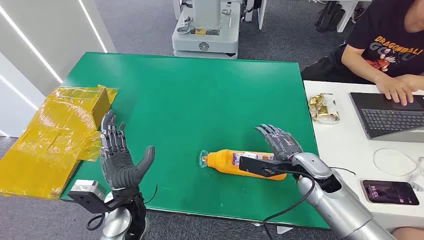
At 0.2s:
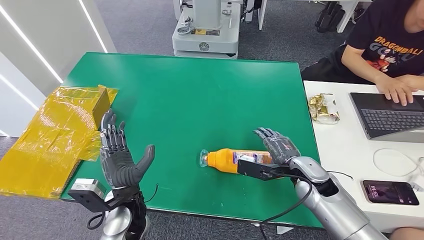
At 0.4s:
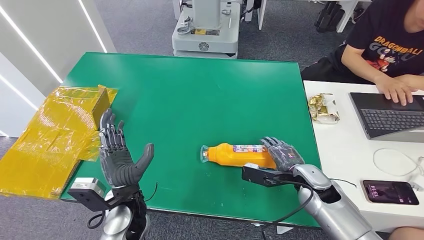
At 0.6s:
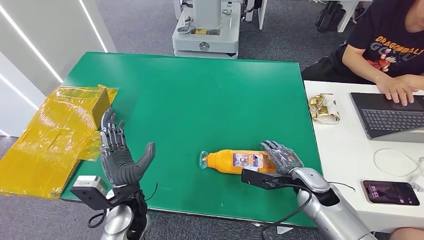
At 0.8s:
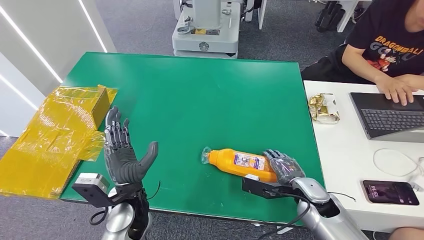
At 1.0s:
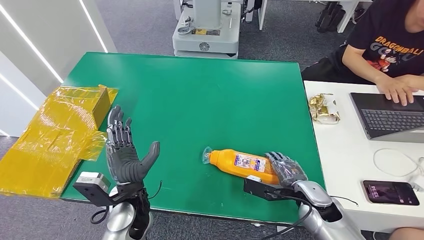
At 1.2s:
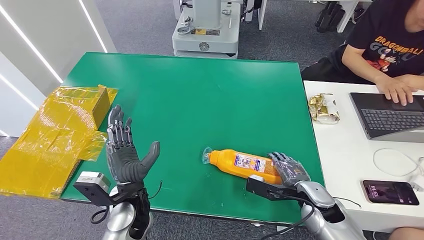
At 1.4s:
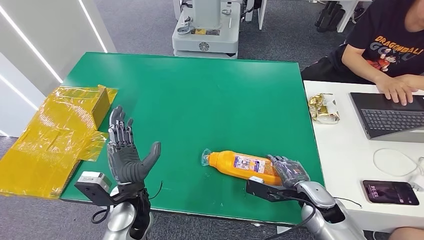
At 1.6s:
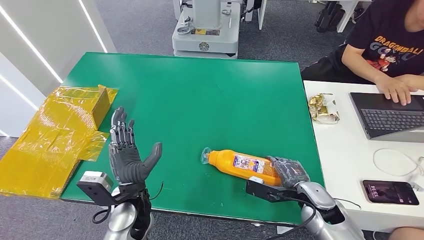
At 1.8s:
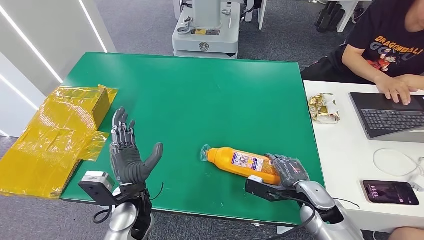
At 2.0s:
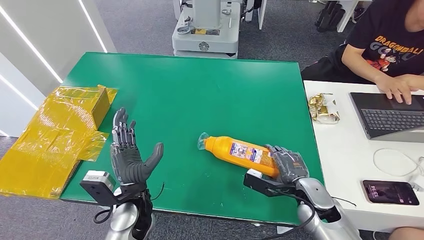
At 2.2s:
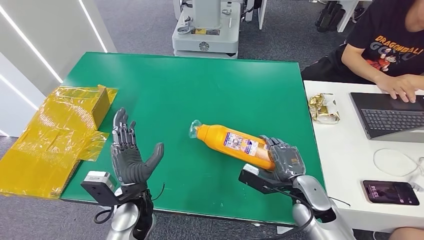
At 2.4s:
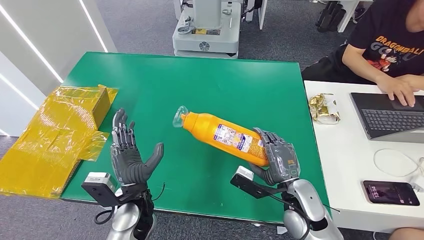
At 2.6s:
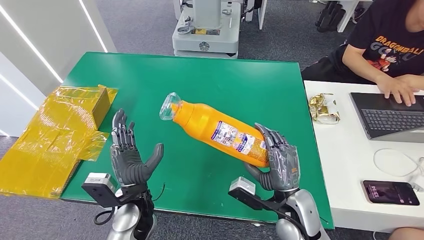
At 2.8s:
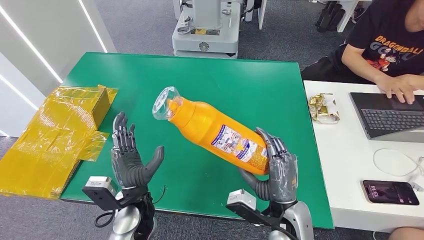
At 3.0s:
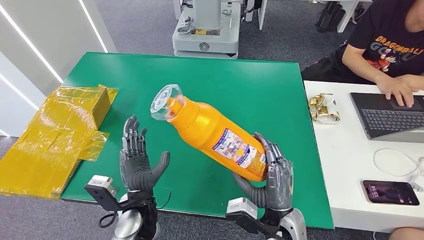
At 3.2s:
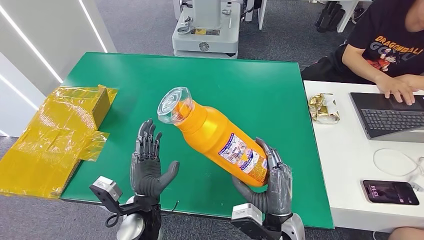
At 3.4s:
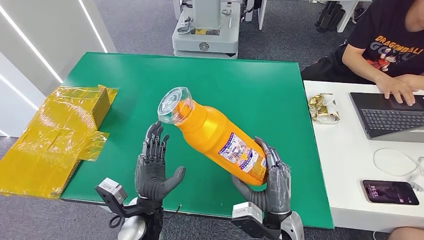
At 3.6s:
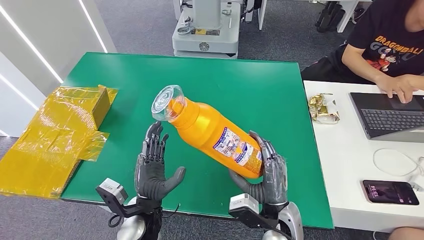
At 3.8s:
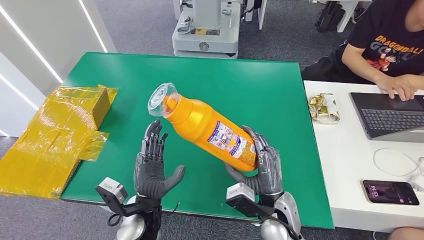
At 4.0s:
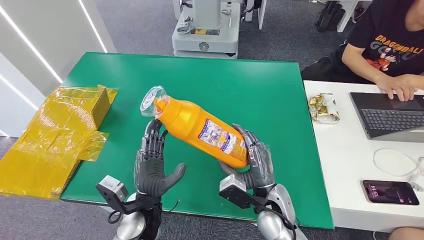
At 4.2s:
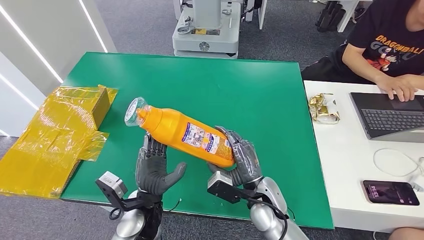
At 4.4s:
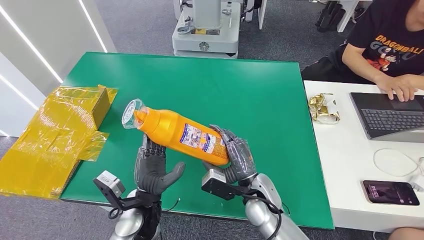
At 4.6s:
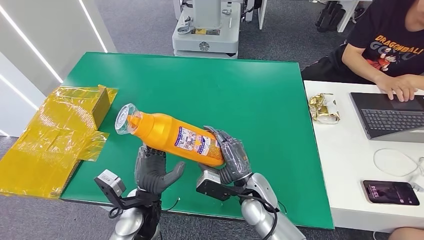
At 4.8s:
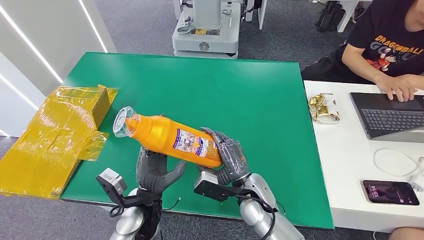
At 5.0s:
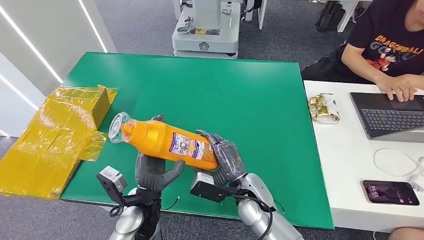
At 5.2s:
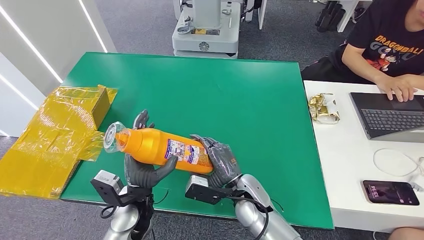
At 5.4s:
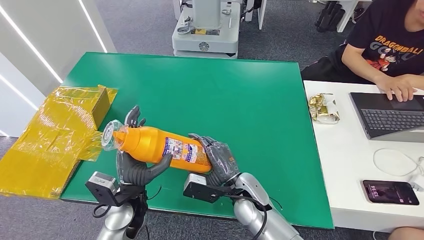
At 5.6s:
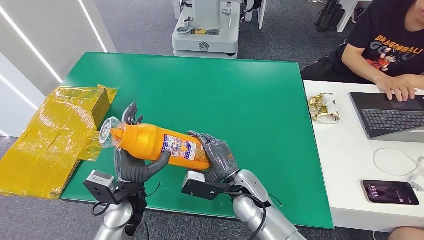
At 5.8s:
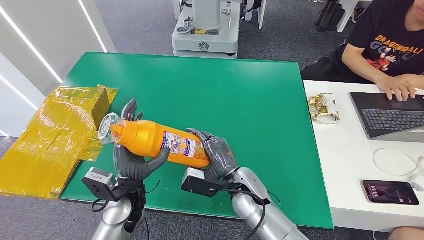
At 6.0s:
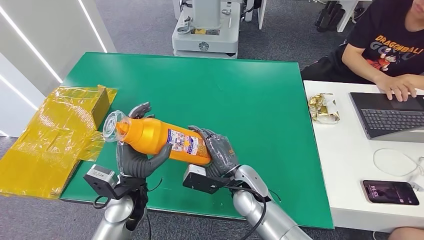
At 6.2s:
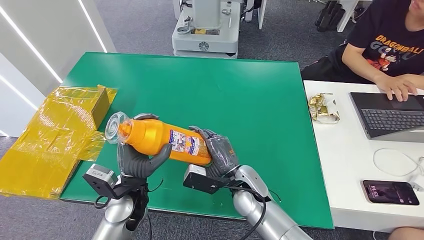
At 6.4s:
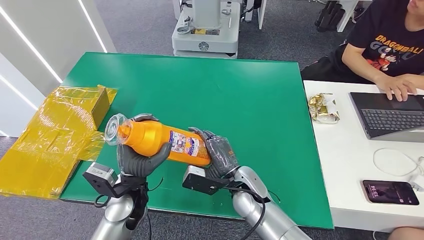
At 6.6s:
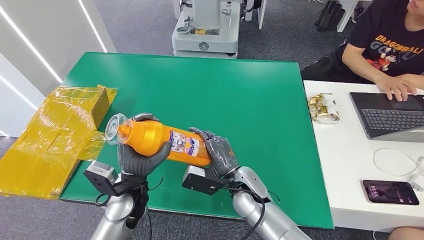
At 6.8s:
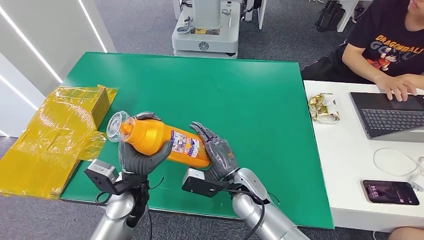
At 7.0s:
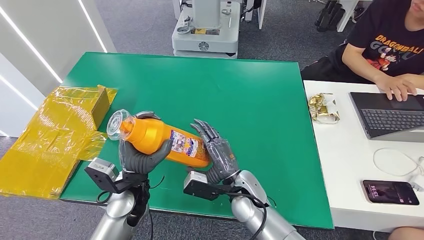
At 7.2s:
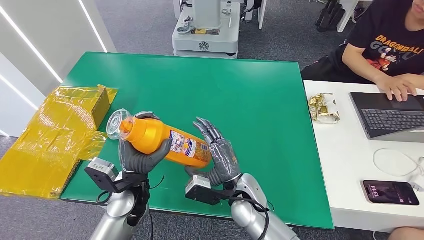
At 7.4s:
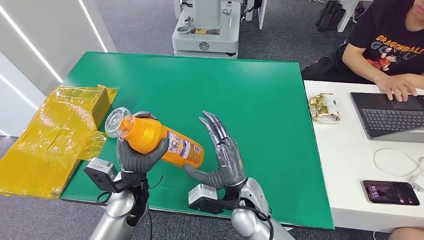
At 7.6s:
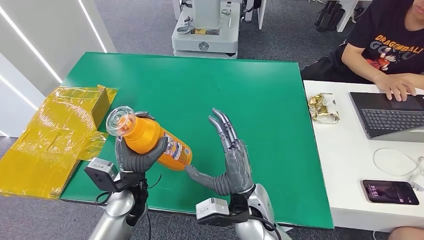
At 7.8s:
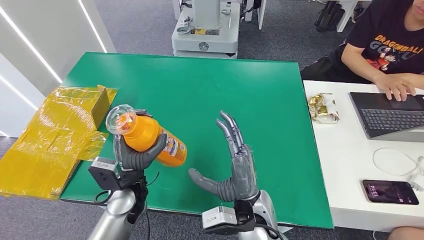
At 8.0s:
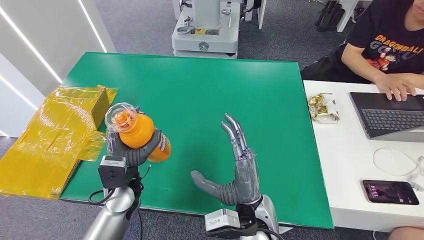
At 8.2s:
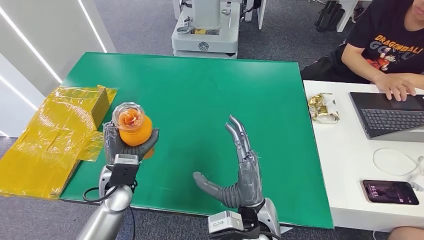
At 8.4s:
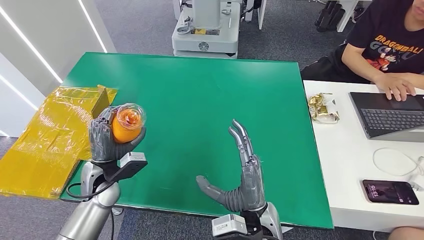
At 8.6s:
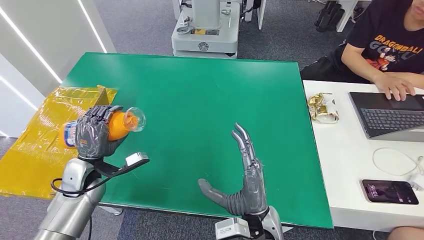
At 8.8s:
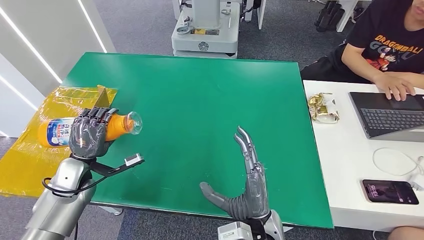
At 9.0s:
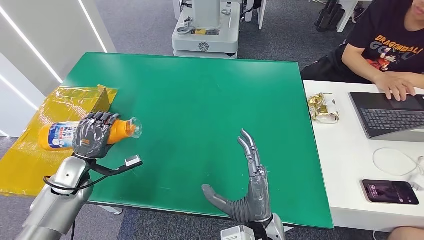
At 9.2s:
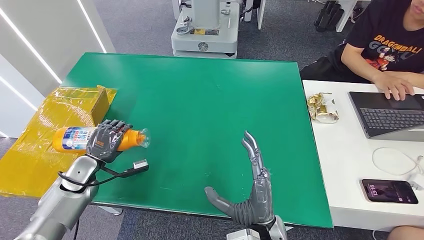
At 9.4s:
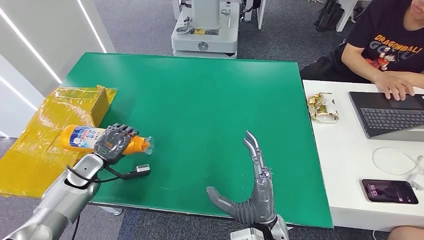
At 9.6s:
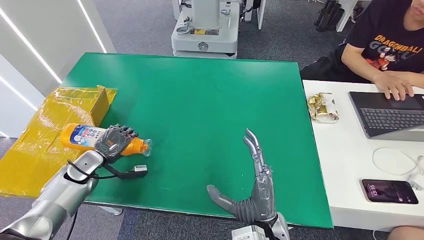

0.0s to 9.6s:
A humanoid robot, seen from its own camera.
Step, 0.0s to 4.0s: Pick up the bottle from the table.
1.6s to 3.2s: The right hand moves to the left and backward, some 15 cm.
3.2s to 4.8s: The right hand travels forward by about 10 cm.
4.8s to 6.4s: The left hand moves some 5 cm.
6.4s to 8.0s: The right hand moves backward, roughly 10 cm.
8.0s to 9.6s: The left hand is displaced to the left by some 20 cm.

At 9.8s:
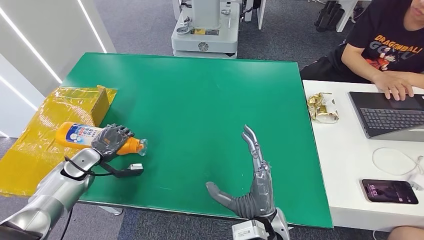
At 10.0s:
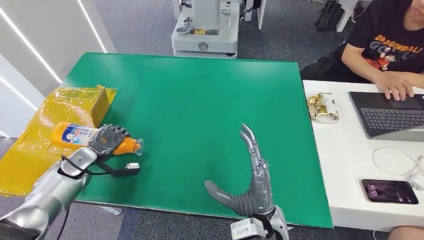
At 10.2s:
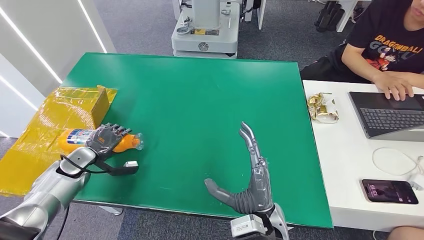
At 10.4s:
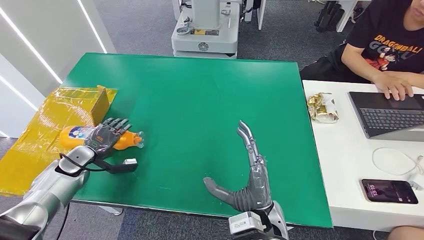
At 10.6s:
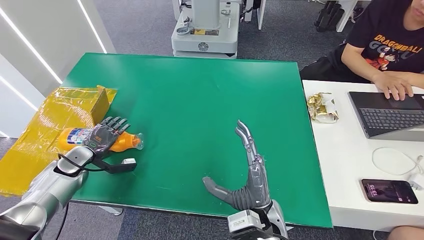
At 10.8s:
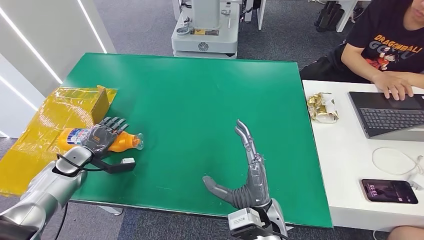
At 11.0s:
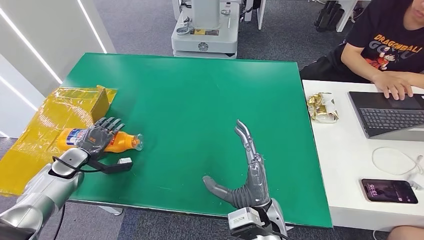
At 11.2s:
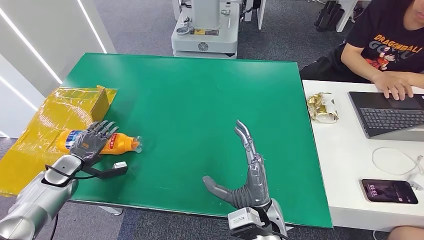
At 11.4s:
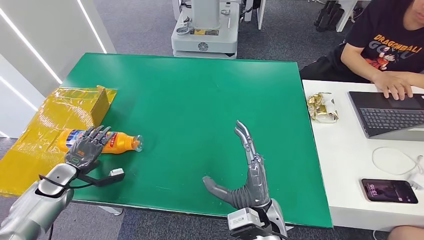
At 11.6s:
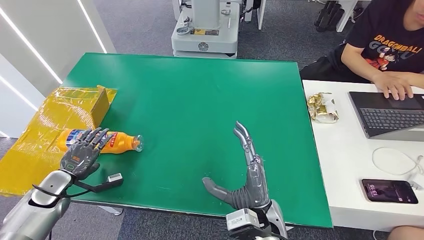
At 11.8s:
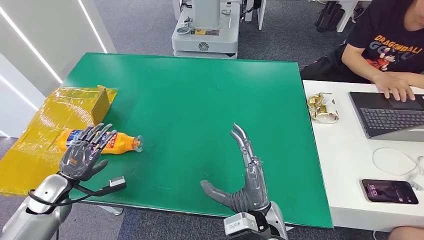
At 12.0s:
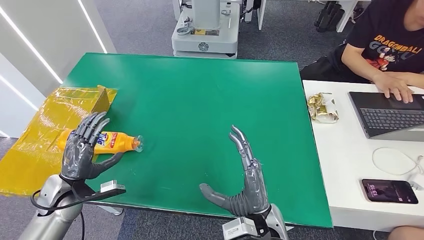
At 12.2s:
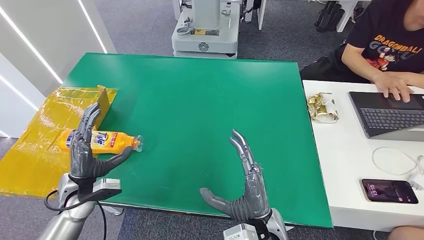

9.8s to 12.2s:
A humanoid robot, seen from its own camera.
Step, 9.8s to 12.2s: Turn the bottle to the front side.
9.8s to 11.0s: The hands stay close to where they were, moving slightly.
11.0s to 12.2s: The left hand goes some 15 cm to the right and backward.

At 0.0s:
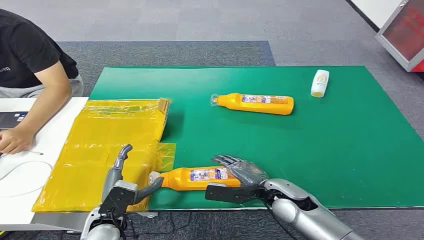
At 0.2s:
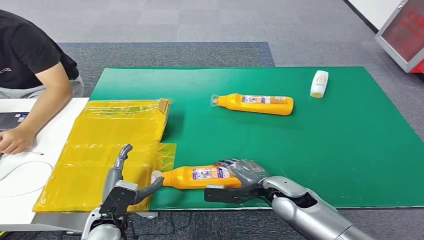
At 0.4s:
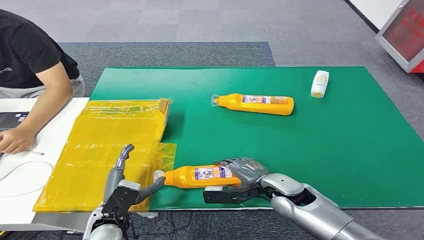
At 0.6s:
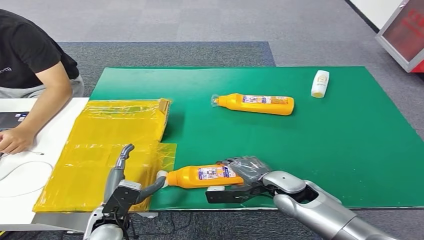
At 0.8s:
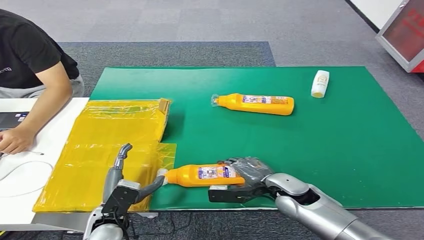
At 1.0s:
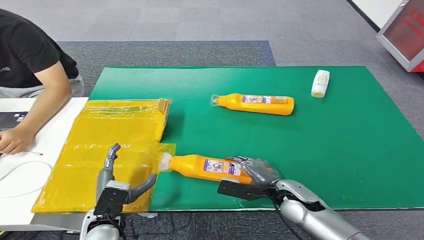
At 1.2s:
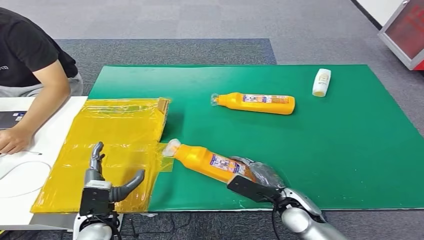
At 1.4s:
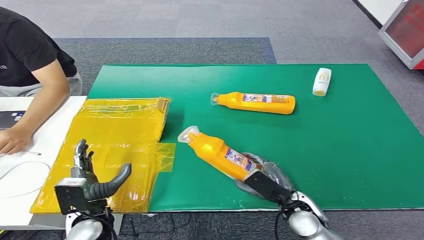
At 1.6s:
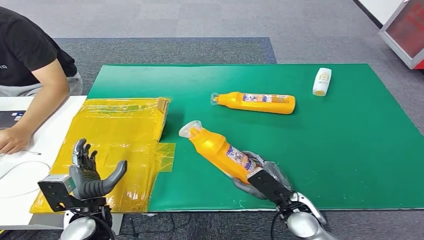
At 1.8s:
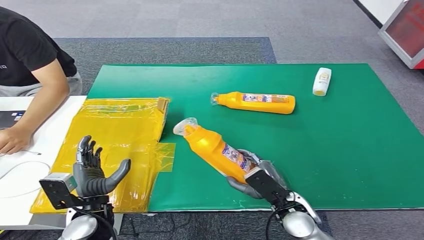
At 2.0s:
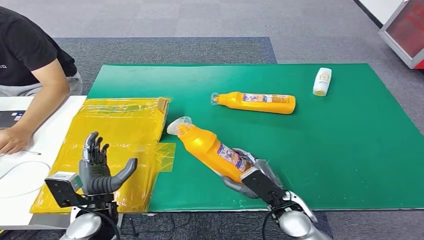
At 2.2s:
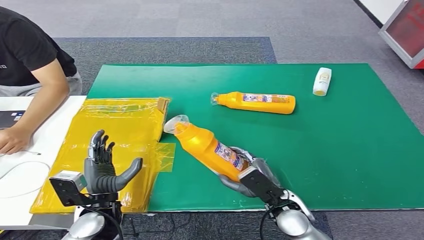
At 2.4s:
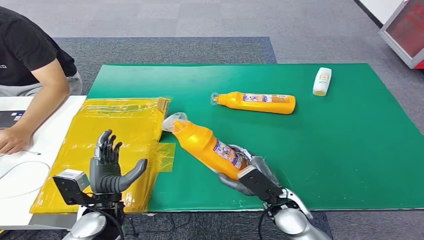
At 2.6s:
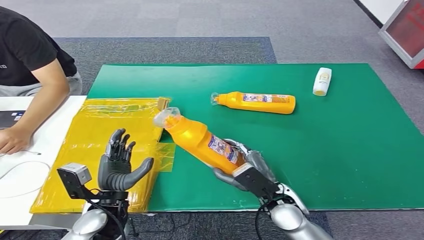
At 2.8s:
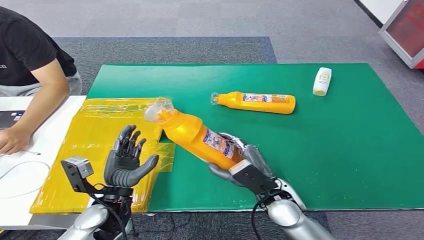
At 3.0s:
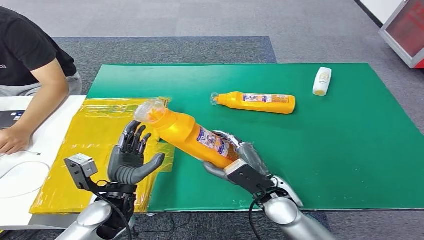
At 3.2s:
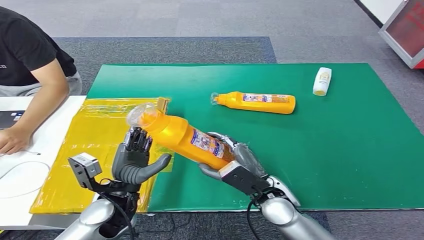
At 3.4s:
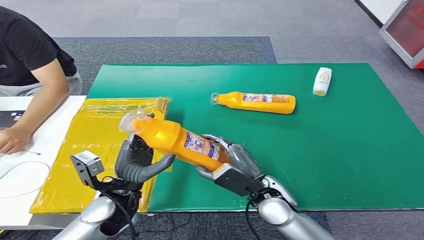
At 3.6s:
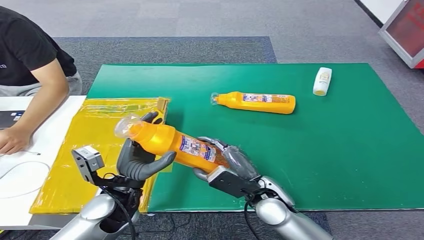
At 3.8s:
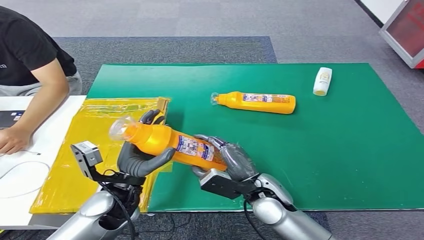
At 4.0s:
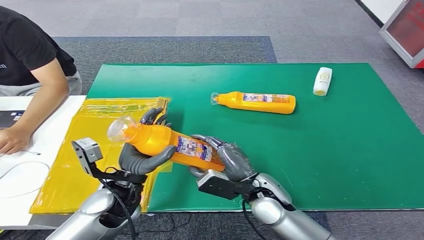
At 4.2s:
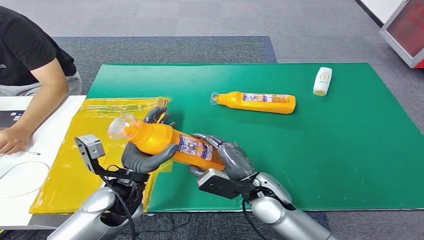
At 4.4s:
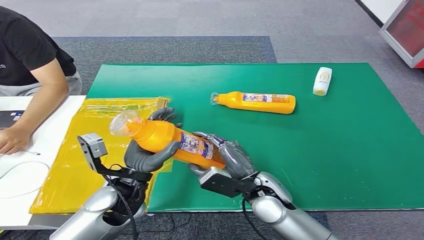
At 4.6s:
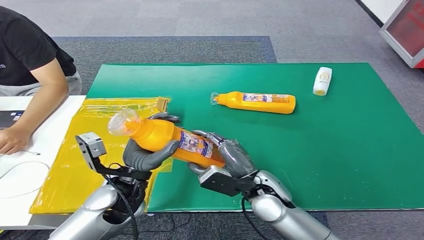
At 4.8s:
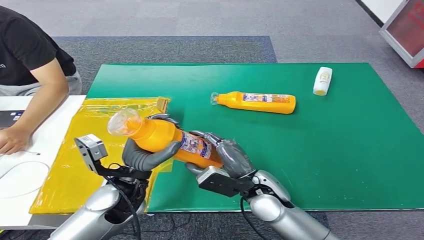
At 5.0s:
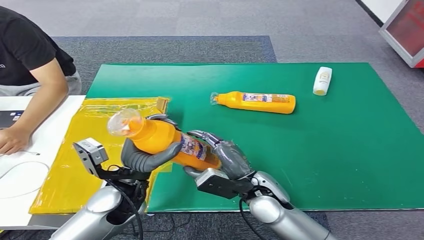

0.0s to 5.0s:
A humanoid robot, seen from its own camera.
Step, 0.0s to 3.2s: Pick up the bottle from the table.
1.6s to 3.4s: The left hand shifts approximately 10 cm to the right and upward, while the right hand is displaced to the left by approximately 5 cm.
3.4s to 5.0s: The hands stay close to where they were, moving slightly.
